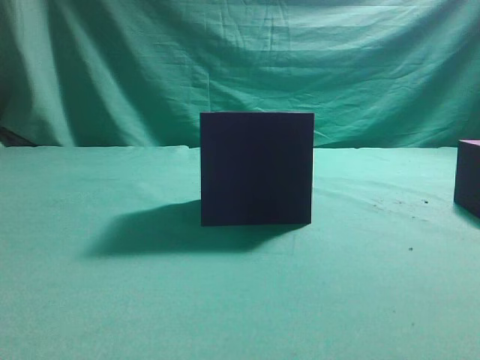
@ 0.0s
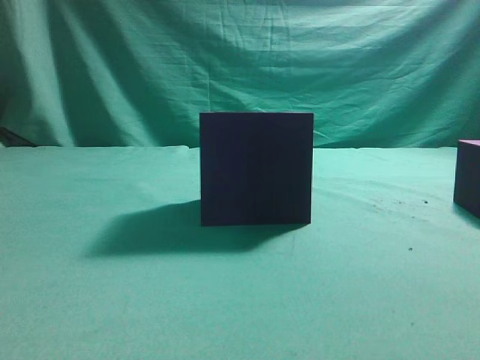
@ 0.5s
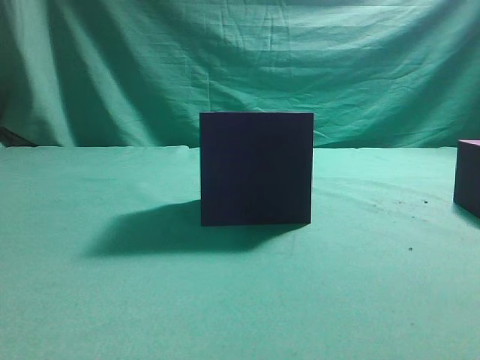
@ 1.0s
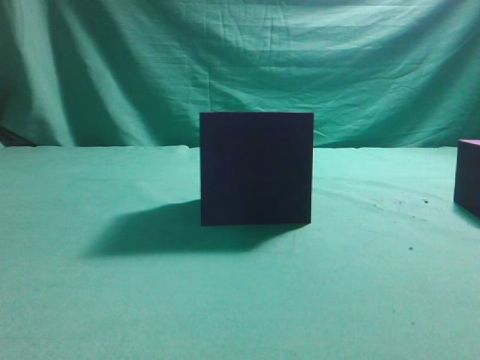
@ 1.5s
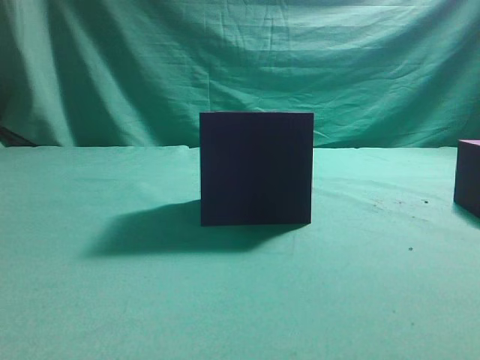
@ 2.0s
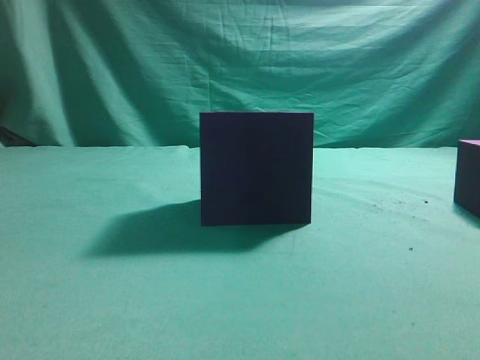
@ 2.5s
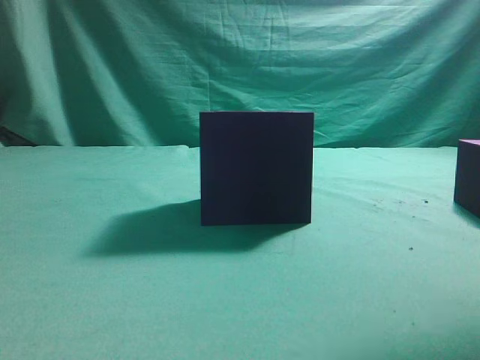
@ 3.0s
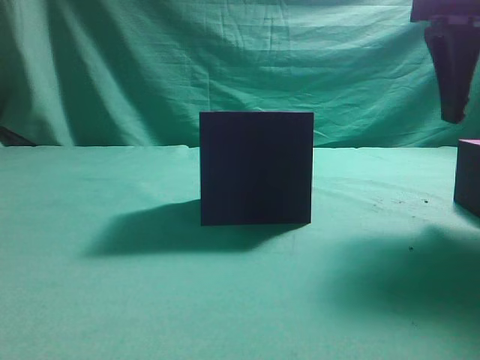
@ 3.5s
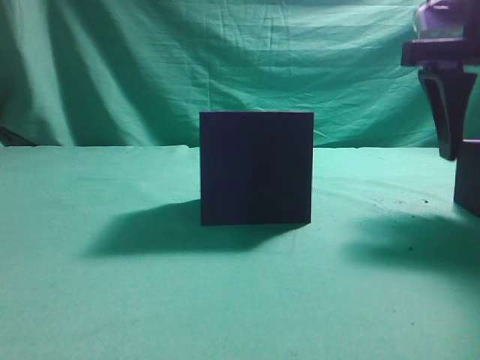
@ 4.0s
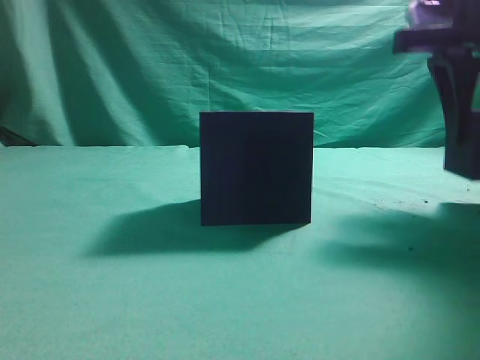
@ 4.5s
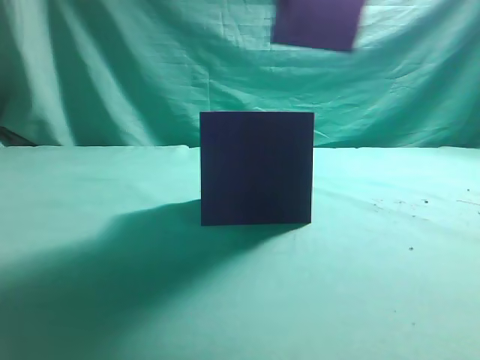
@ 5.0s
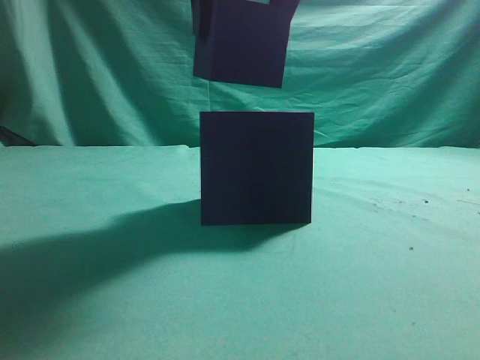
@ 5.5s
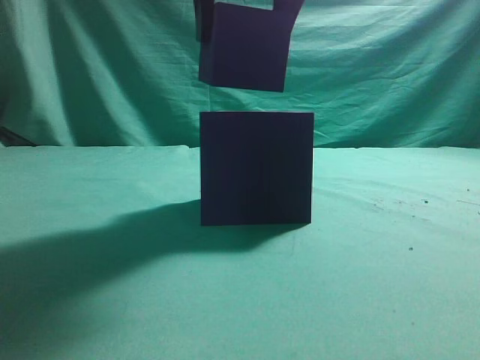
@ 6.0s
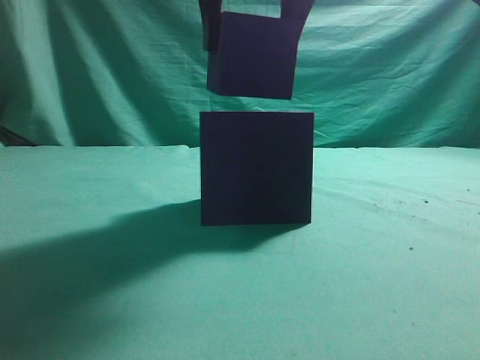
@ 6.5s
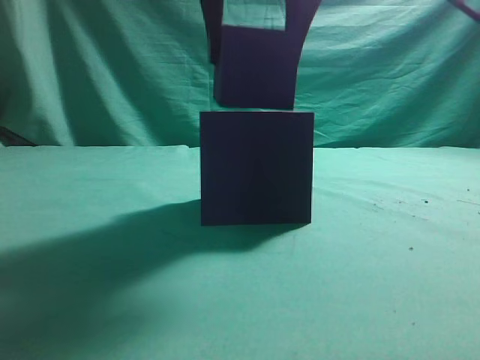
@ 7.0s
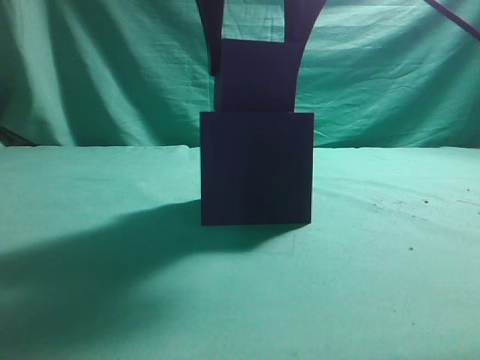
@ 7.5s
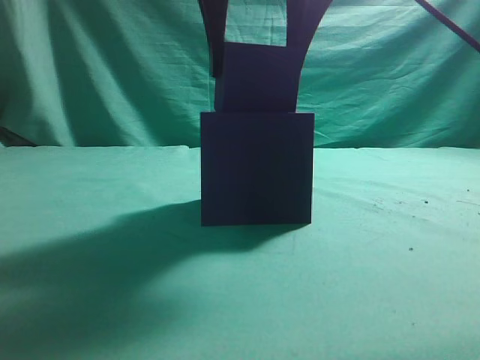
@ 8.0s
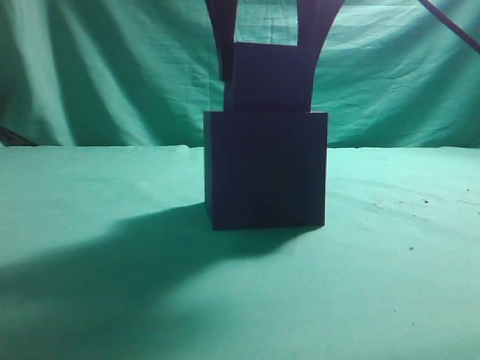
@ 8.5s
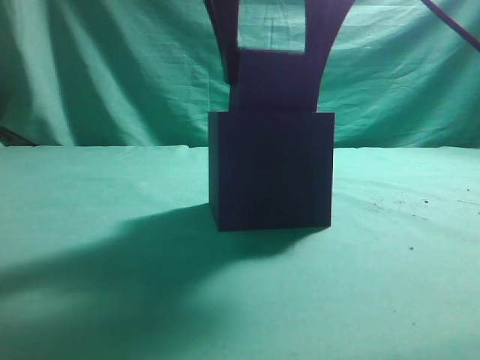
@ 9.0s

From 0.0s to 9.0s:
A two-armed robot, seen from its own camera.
Task of the whole recording: pick up the cube block and place it into the cube groove.
Step, from 0.0s to 4.5s: Grasp the cube.
From 2.0s to 4.5s: The right gripper is displaced forward by roughly 25 cm, and opens.
From 4.5s to 7.0s: The right gripper is displaced to the left by some 20 cm.
From 7.0s to 9.0s: The grippers stay close to where they were, moving slightly.

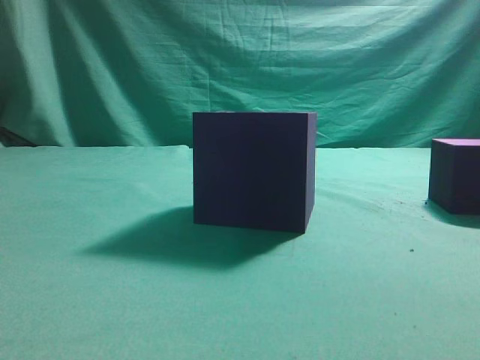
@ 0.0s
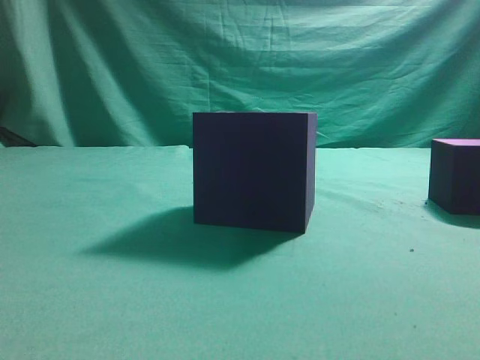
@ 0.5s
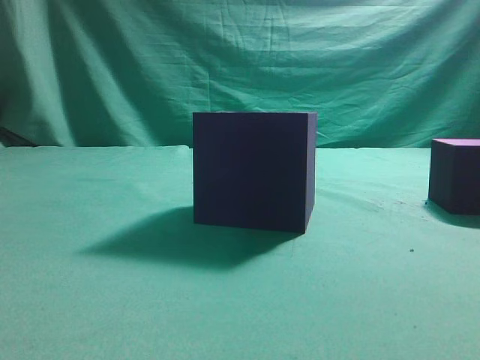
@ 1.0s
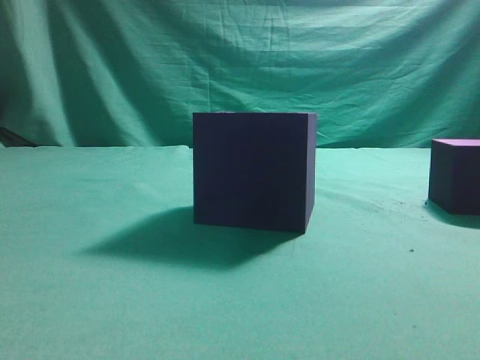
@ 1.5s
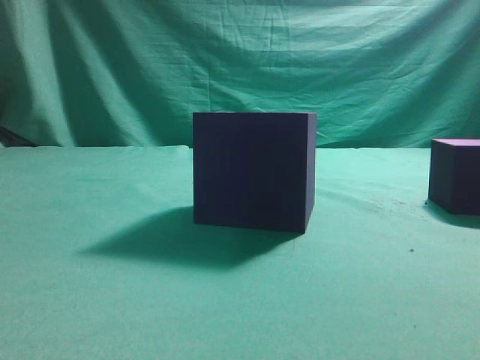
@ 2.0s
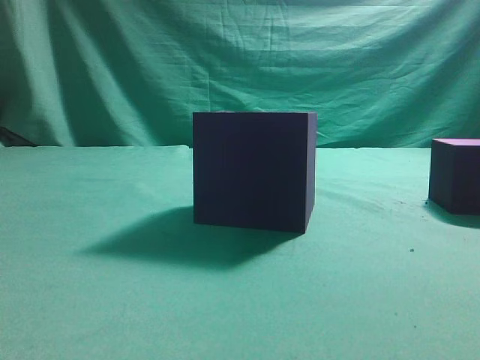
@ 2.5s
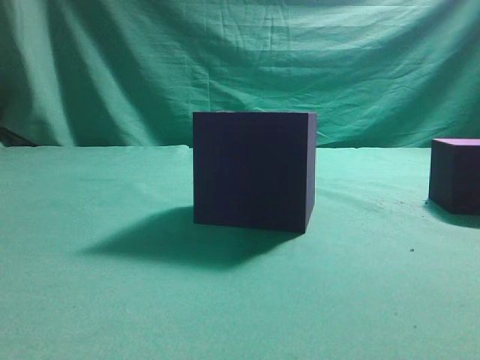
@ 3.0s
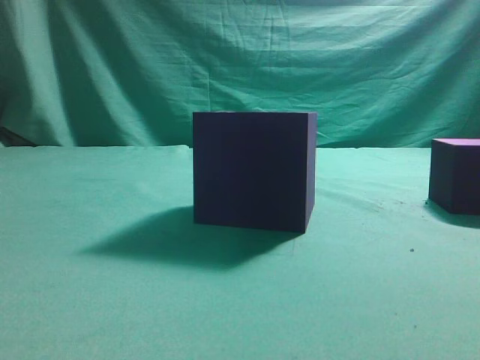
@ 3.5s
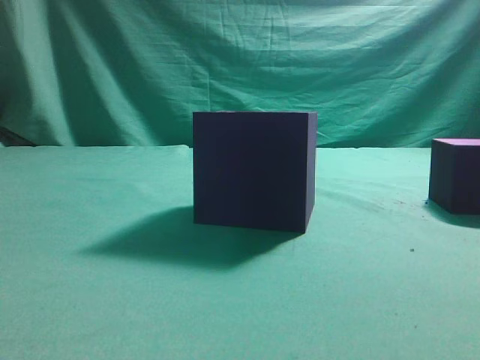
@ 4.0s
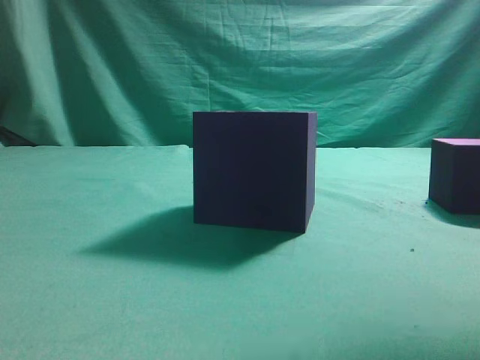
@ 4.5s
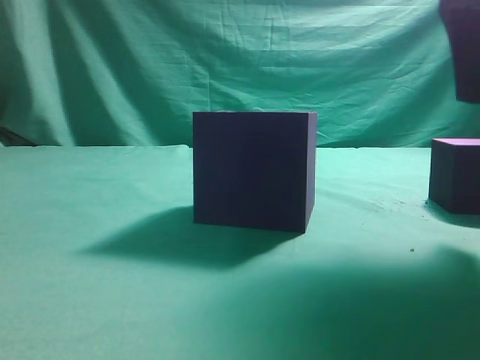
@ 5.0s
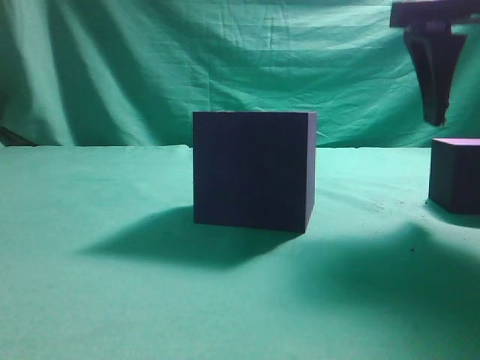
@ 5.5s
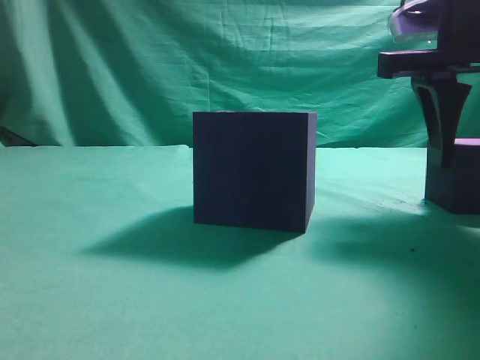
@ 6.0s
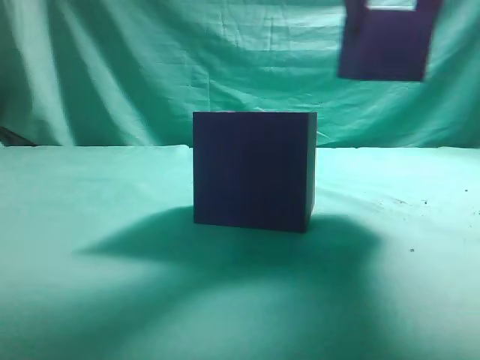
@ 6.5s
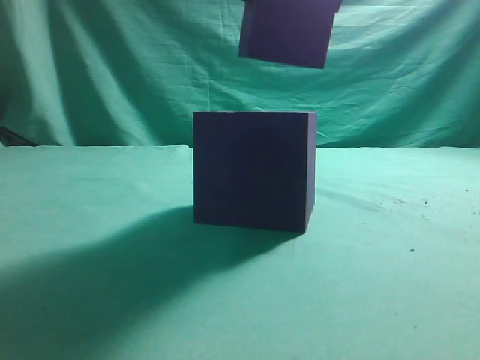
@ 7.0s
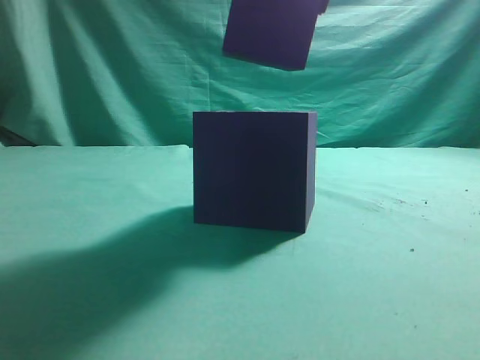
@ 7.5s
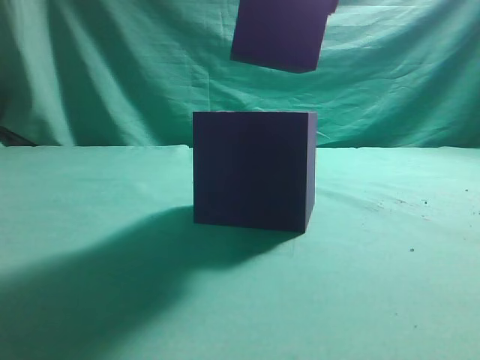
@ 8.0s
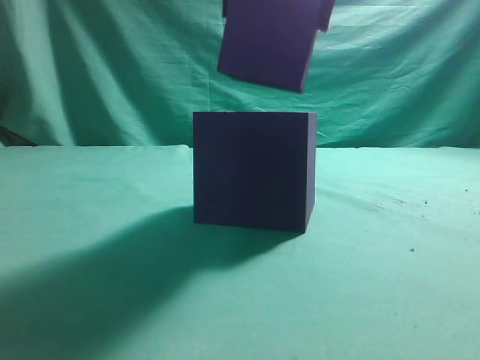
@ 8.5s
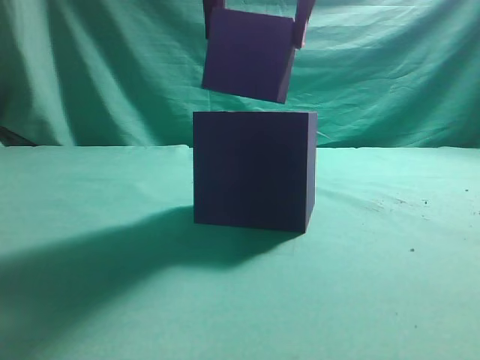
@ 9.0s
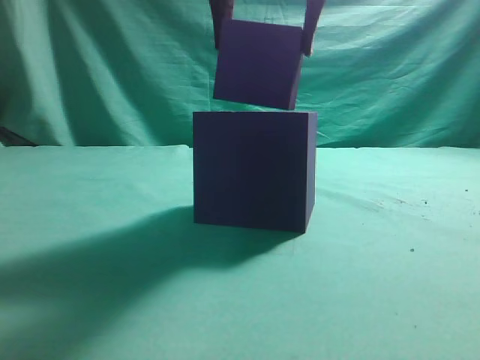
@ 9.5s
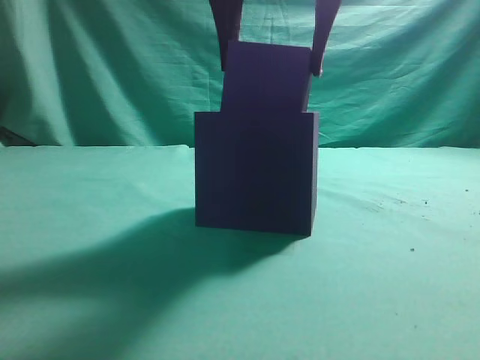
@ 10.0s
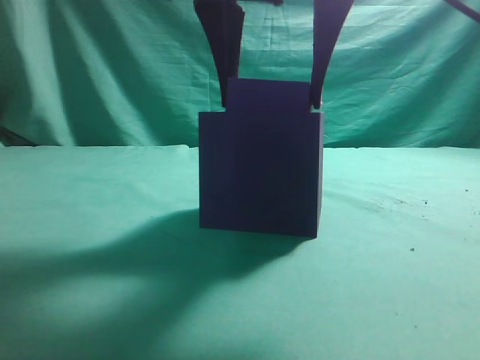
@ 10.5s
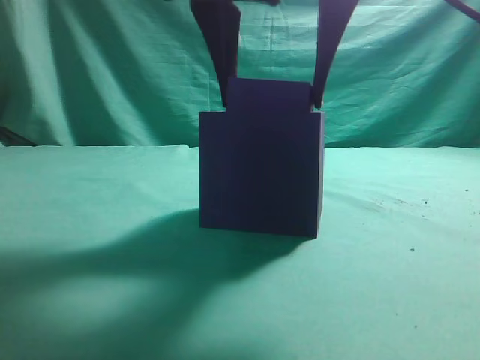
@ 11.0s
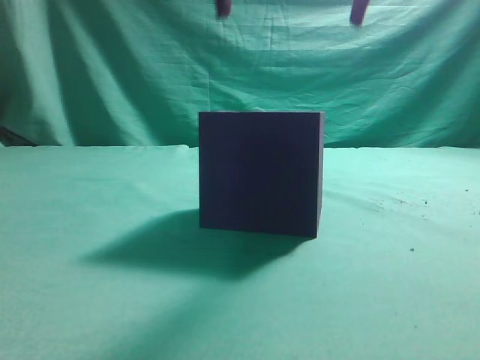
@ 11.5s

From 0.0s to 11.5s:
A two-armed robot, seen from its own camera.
Task of the whole recording: pick up the cube block and place it into the cube groove.
Step, from 0.0s to 6.0s: Grasp the cube.
Step, from 6.5s to 11.0s: Place cube into the cube-shaped recess.
From 4.0s to 6.0s: The right gripper travels forward, downward and to the left by about 15 cm, and opens up.
From 6.0s to 7.5s: The right gripper goes approximately 20 cm to the left, upward and backward.
From 7.5s to 9.5s: There are only small adjustments of the grippers.
